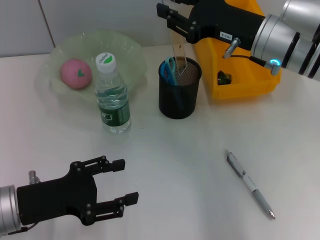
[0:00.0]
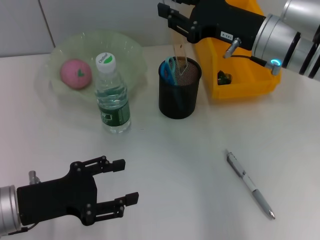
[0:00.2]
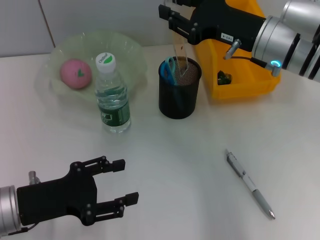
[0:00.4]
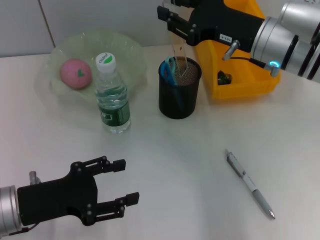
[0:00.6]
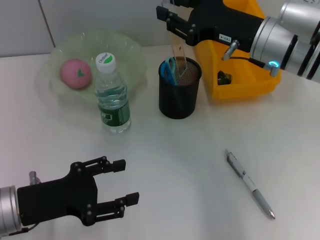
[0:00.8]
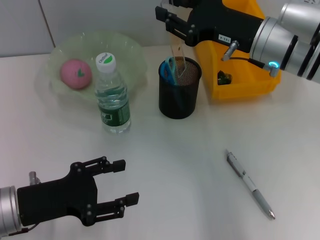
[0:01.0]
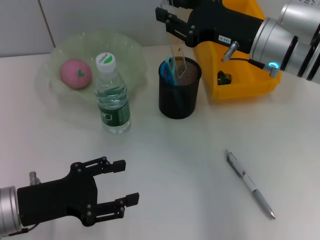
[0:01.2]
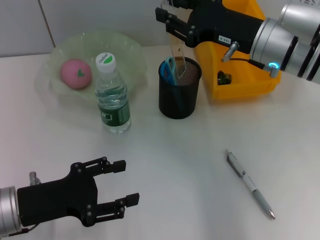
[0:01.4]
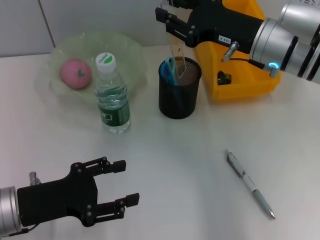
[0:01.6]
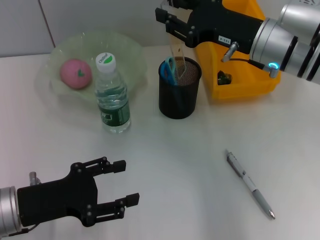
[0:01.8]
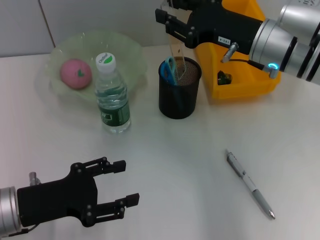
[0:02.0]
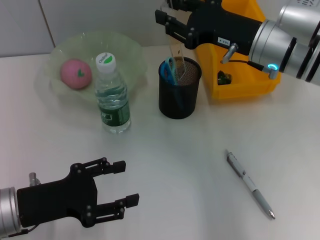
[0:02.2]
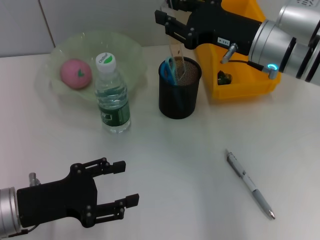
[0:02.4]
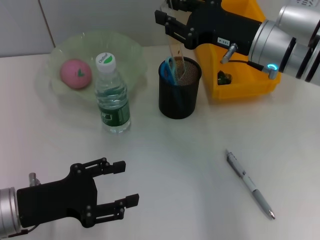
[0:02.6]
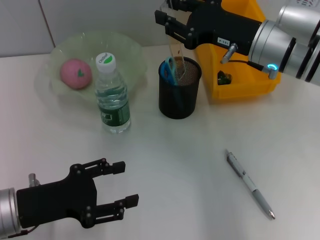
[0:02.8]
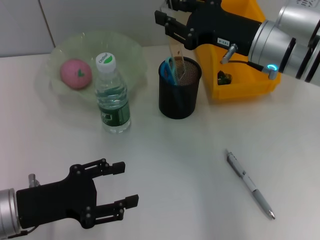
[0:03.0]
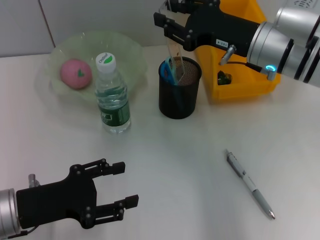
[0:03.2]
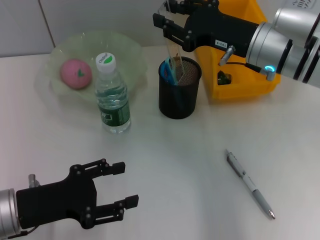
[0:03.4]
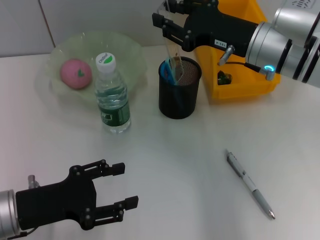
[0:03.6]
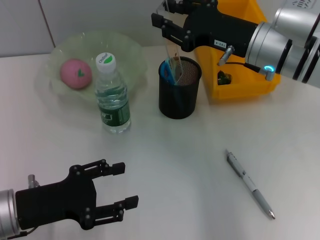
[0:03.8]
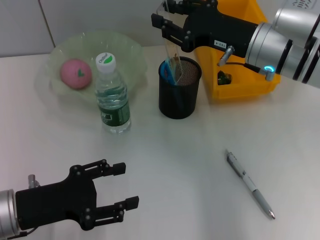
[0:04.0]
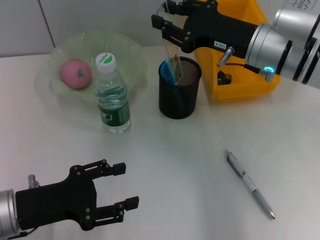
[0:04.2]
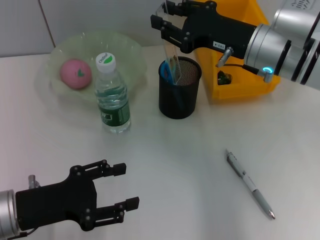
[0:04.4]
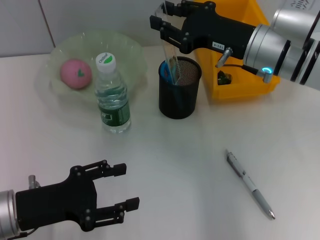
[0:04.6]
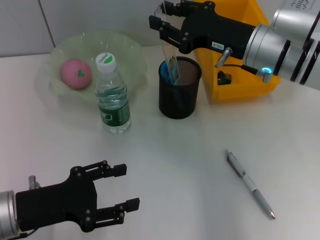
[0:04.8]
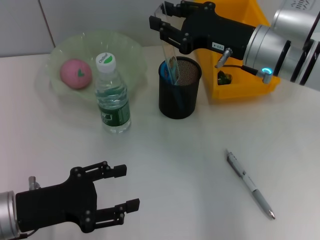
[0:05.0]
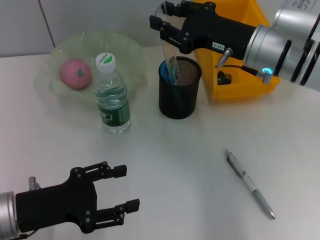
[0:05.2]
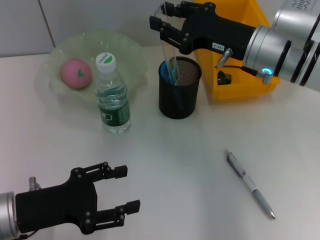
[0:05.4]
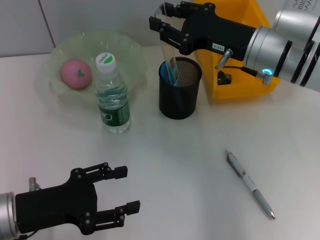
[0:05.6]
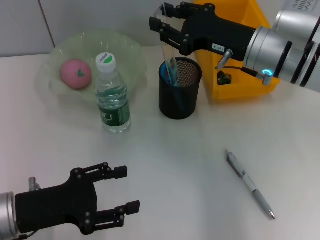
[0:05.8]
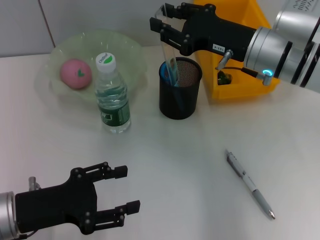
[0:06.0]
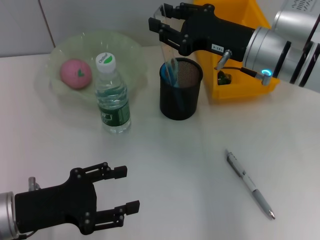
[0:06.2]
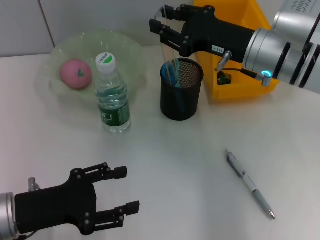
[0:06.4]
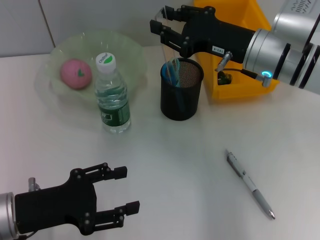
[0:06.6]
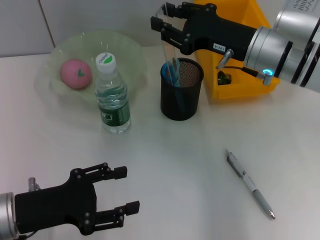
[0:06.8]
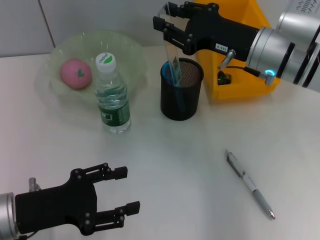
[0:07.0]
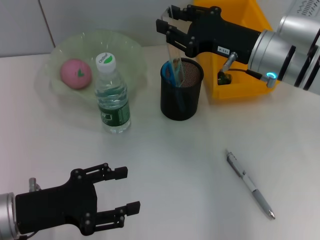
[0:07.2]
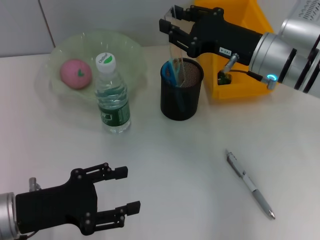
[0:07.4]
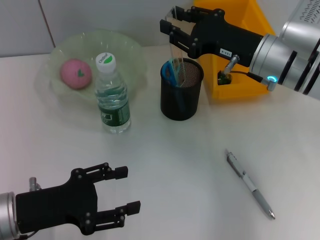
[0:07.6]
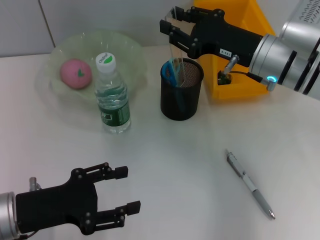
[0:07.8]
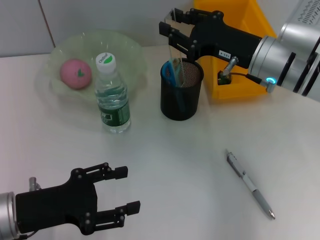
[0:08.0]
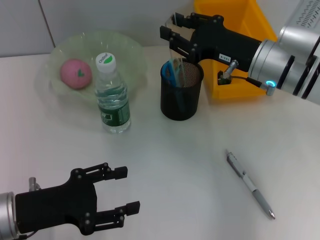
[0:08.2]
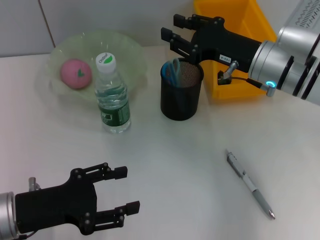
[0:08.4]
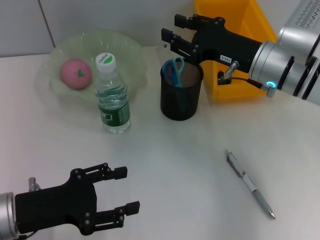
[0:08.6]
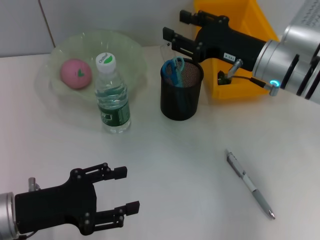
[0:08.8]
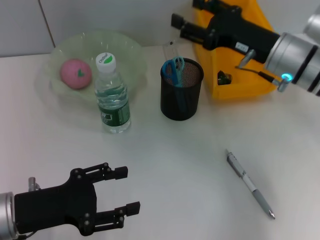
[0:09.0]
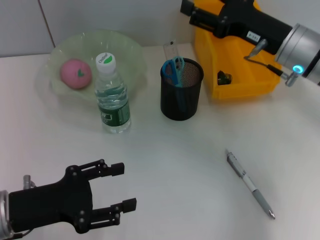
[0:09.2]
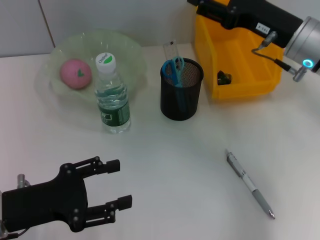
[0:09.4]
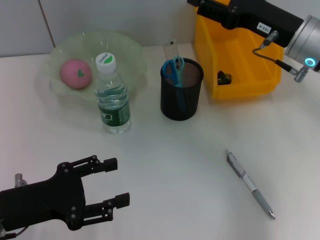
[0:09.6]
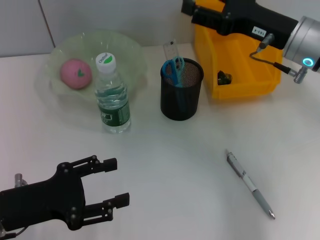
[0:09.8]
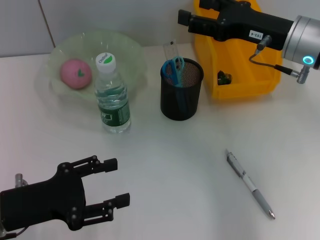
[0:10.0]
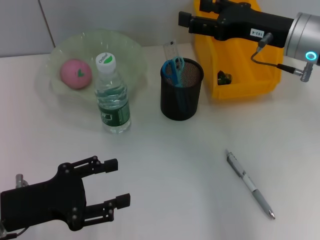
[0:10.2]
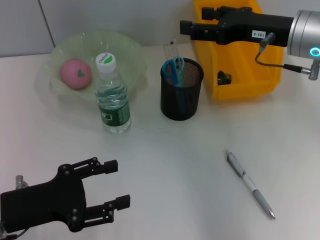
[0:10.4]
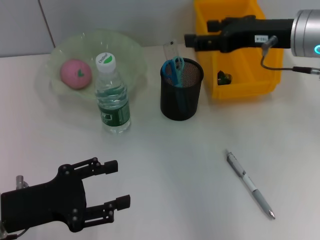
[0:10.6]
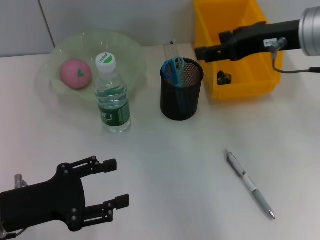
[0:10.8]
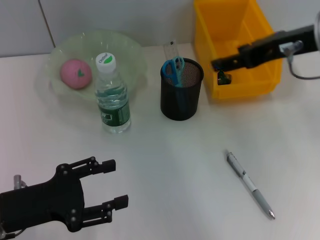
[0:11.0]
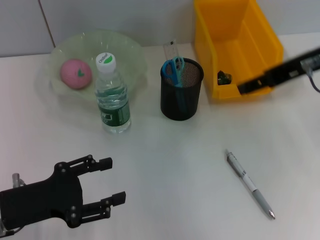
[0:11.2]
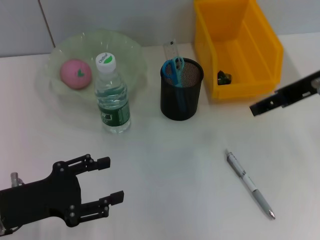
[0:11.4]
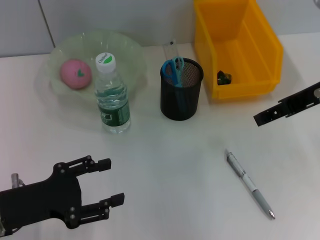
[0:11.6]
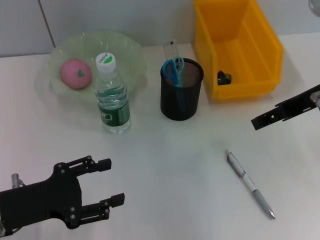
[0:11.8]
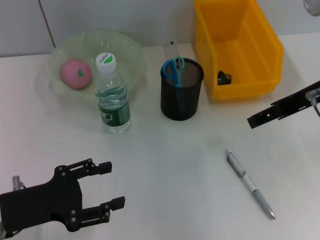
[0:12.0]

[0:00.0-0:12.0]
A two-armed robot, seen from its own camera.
Step, 0:00.0 to 0:09.2: Place the ruler into the pen holder with the right hand.
0:00.0 to 0:04.4: Both grippers stay put.
0:04.4 to 0:06.0: Neither gripper changes place.
0:06.0 to 0:09.0: The grippers move only a little.
0:09.0 to 0:10.4: The right gripper travels upward by roughly 5 cm.
0:10.4 to 0:12.0: The right gripper shifts approximately 5 cm backward.

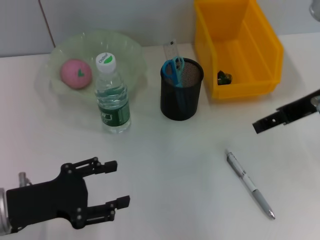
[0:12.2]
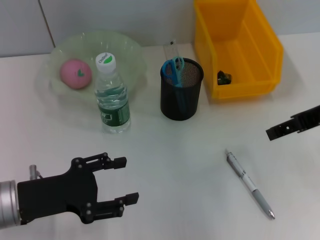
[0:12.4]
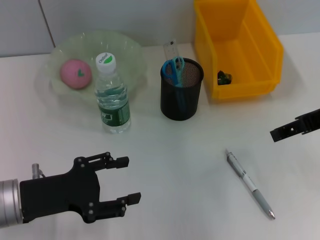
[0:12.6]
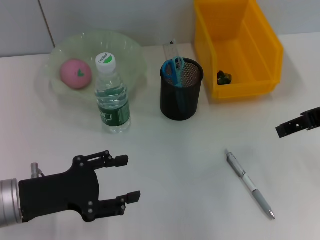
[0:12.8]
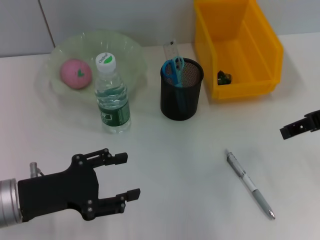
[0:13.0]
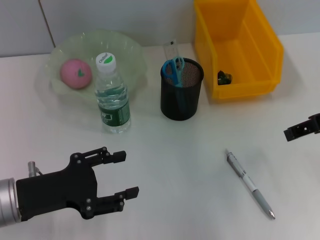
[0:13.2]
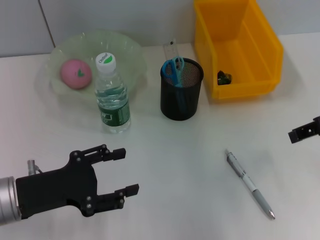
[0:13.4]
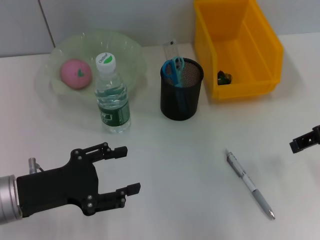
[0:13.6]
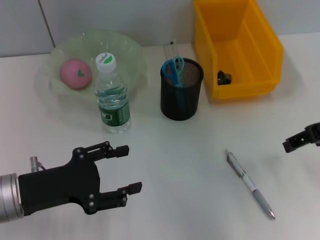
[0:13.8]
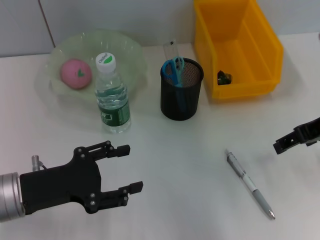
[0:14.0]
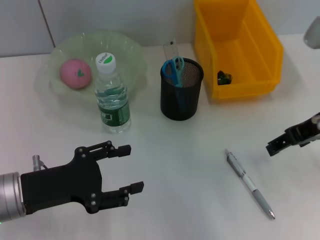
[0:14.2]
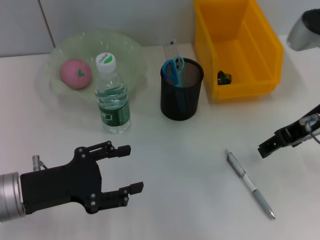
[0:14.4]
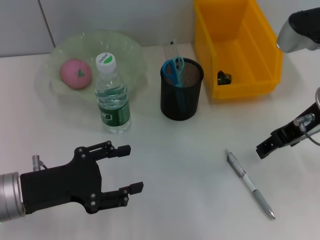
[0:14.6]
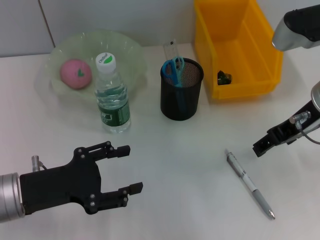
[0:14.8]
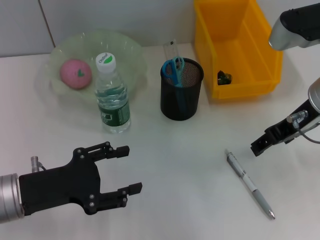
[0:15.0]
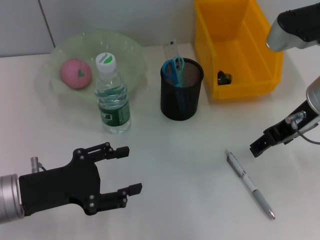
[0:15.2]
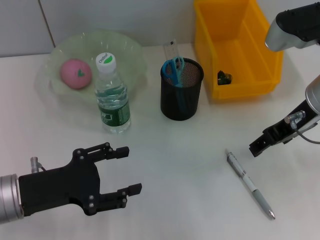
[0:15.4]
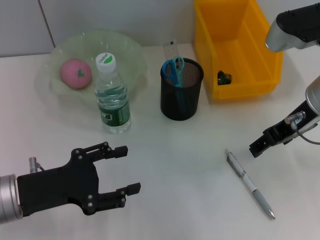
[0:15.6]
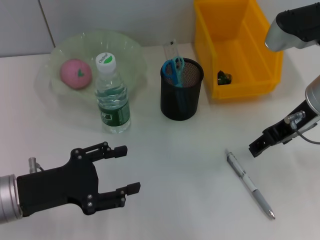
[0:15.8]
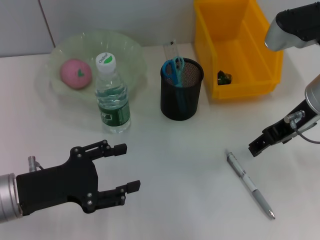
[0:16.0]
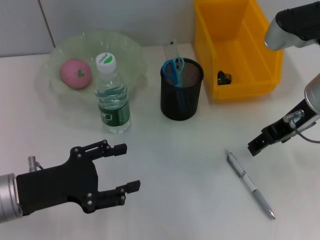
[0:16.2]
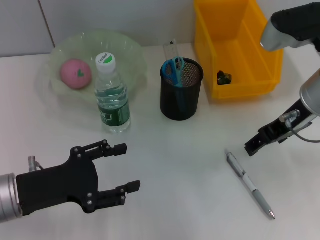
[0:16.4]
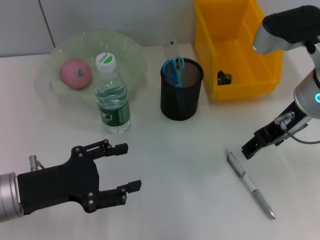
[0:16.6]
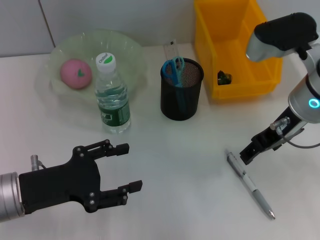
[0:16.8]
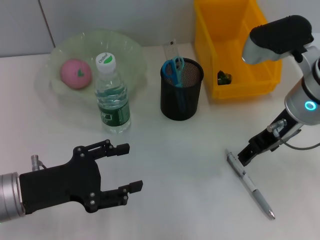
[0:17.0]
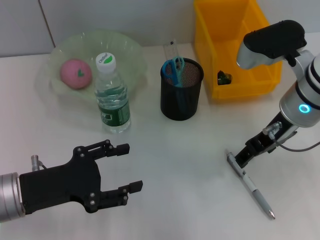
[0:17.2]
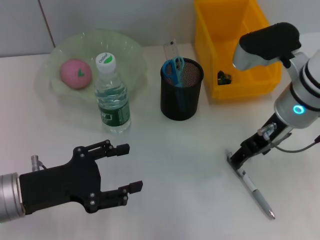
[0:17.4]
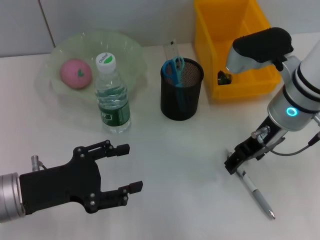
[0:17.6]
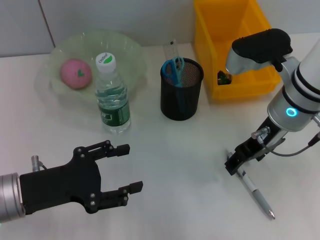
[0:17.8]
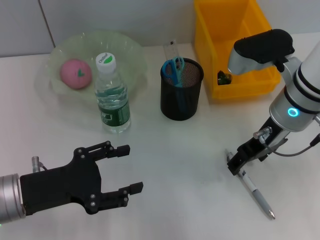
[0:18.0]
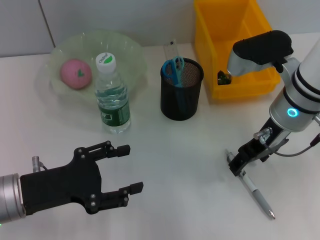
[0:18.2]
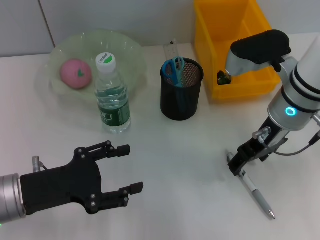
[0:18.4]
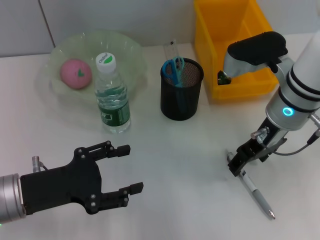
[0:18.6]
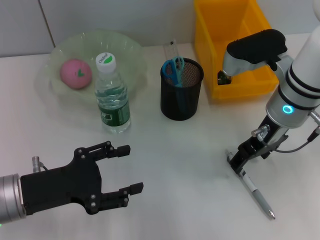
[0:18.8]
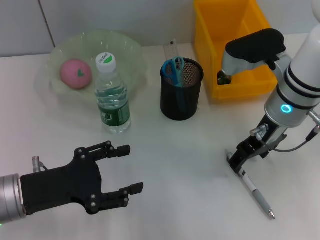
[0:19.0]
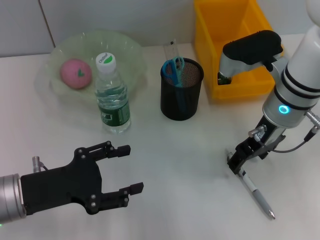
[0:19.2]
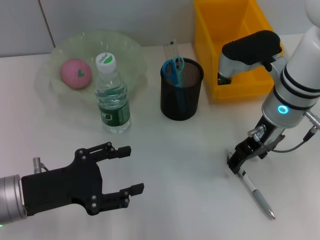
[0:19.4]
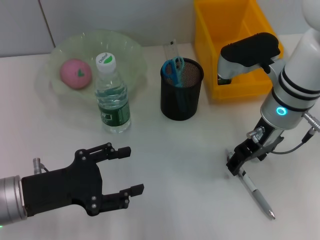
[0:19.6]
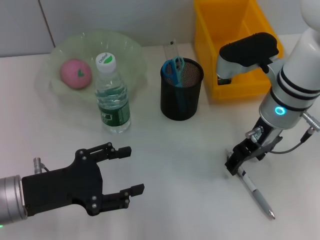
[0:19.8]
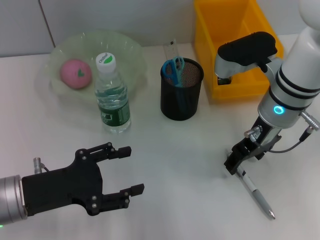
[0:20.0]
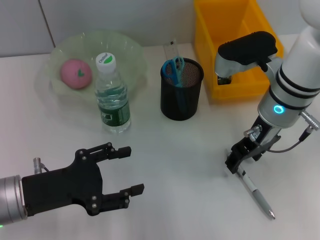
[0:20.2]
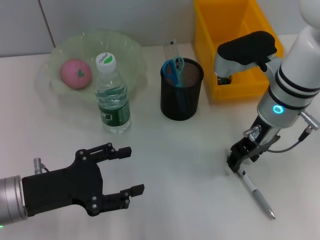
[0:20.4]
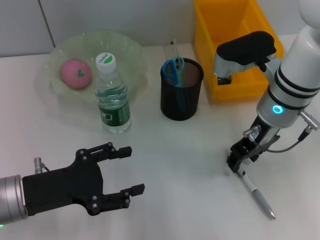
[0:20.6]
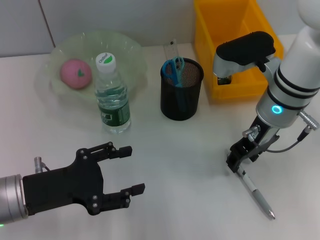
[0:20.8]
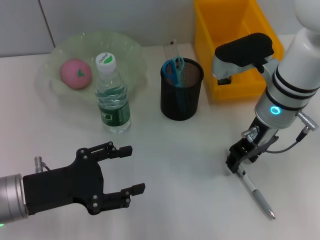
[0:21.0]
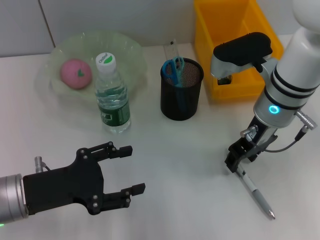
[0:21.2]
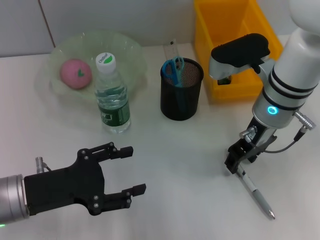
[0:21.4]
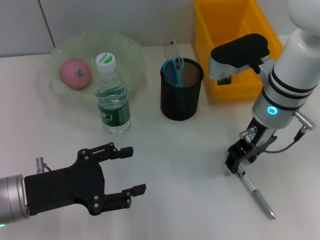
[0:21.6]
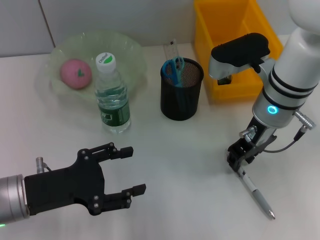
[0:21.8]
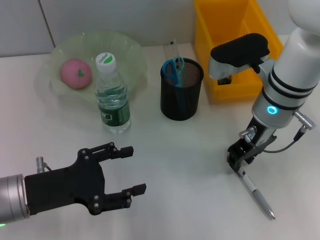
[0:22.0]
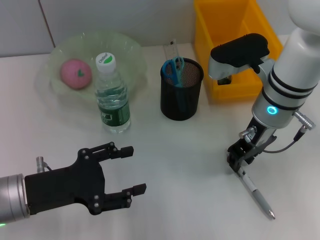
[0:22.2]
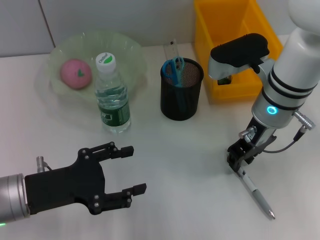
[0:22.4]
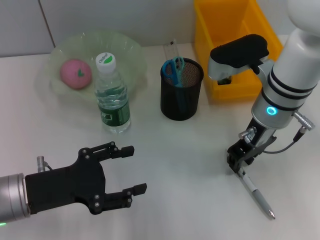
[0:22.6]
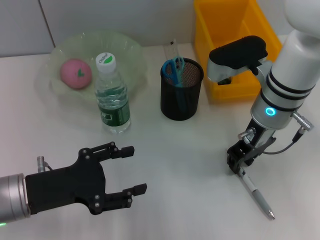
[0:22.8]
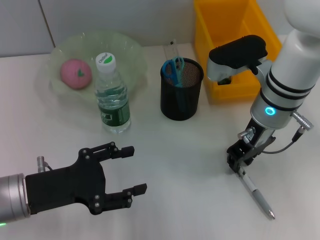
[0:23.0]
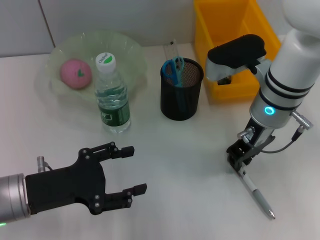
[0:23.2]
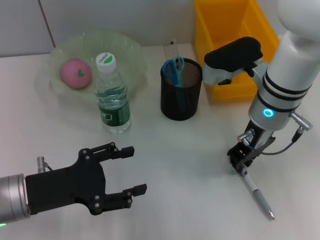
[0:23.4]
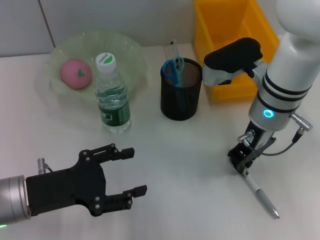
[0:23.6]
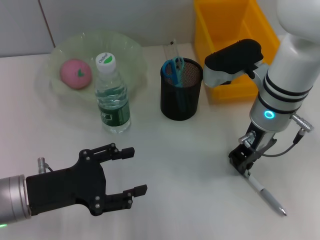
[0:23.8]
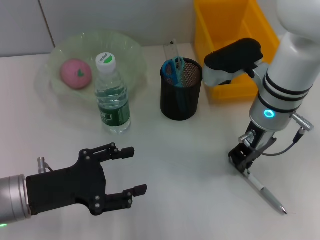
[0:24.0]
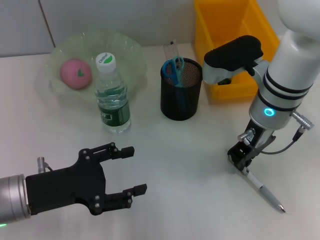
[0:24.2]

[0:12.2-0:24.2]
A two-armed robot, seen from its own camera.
0:12.2 to 0:13.8: The grippers stay close to where they were, moving slightly.
0:13.8 to 0:15.2: The right gripper heads to the left, covering approximately 5 cm.
0:15.2 to 0:18.2: The grippers make only small movements.
0:18.2 to 0:19.8: There are only small adjustments of the grippers.
0:19.8 to 0:22.6: Both grippers stay about where they are.
0:22.6 to 0:24.2: Both grippers stay put.
